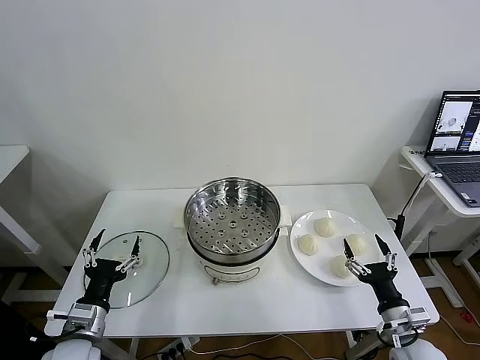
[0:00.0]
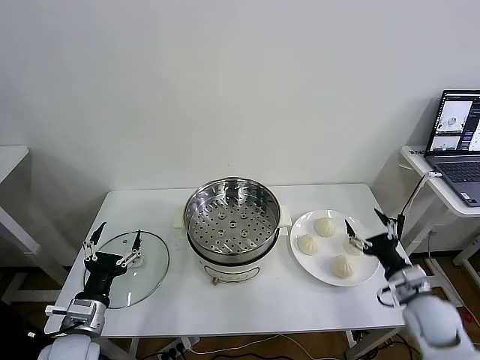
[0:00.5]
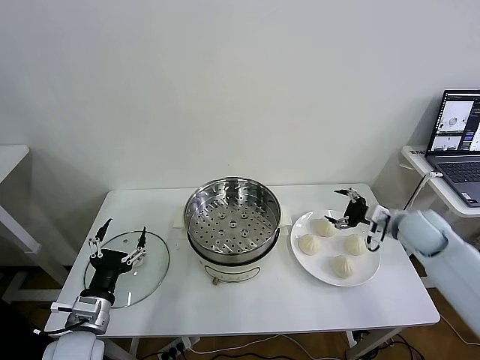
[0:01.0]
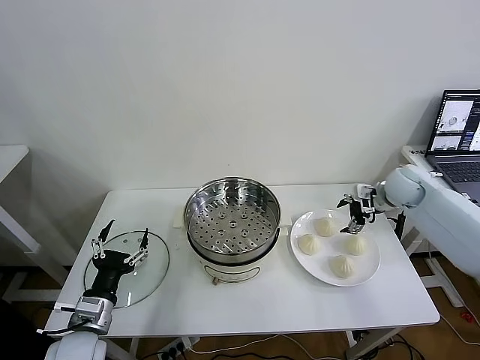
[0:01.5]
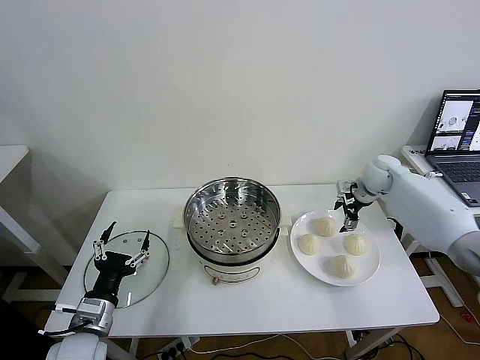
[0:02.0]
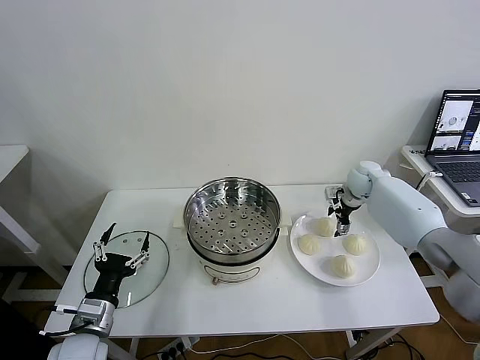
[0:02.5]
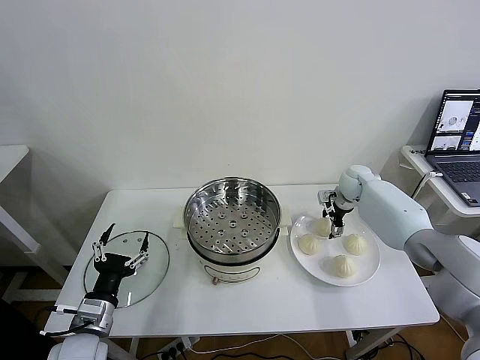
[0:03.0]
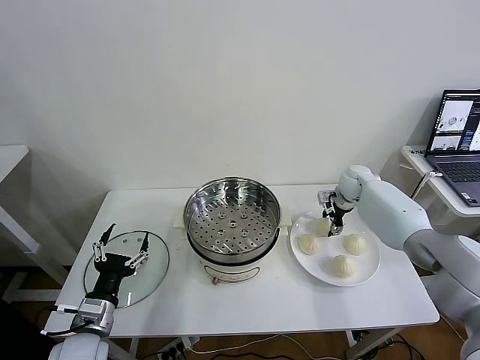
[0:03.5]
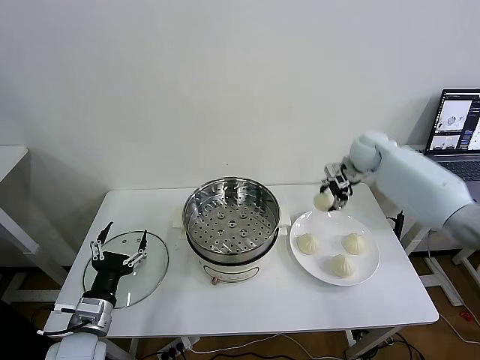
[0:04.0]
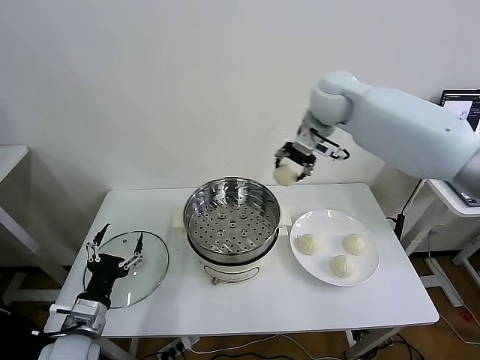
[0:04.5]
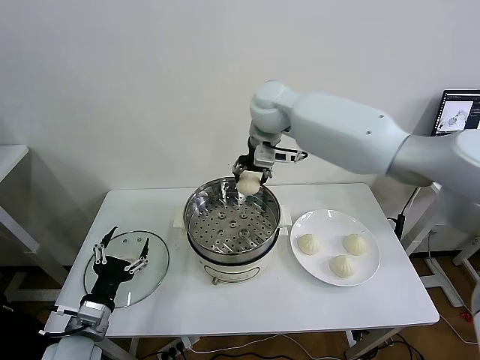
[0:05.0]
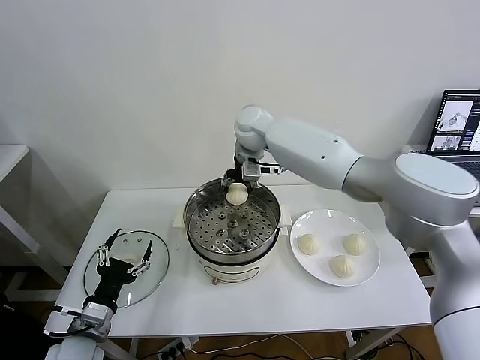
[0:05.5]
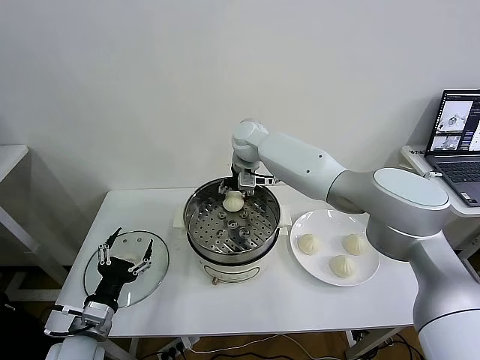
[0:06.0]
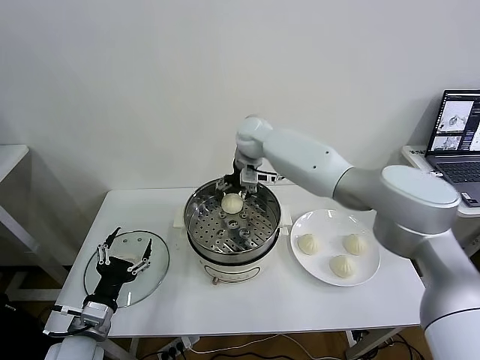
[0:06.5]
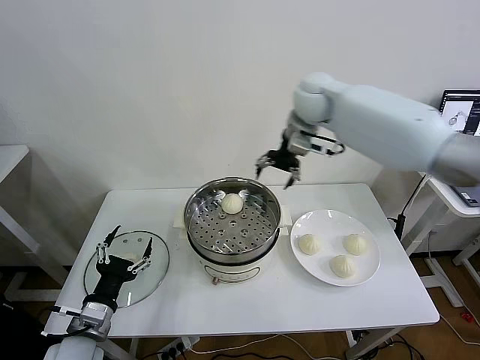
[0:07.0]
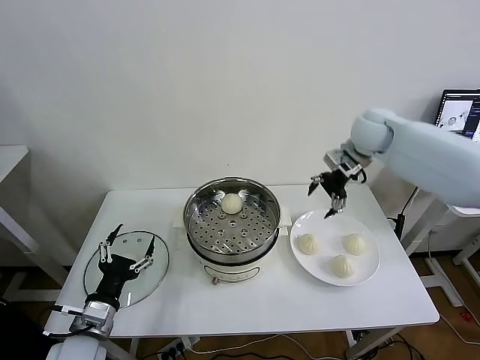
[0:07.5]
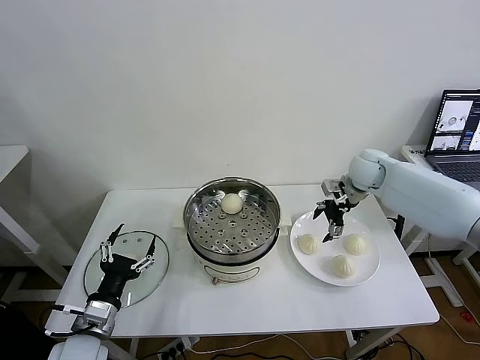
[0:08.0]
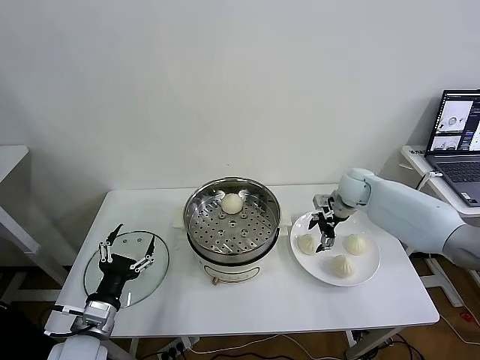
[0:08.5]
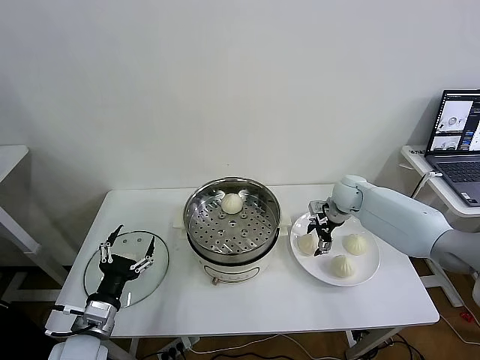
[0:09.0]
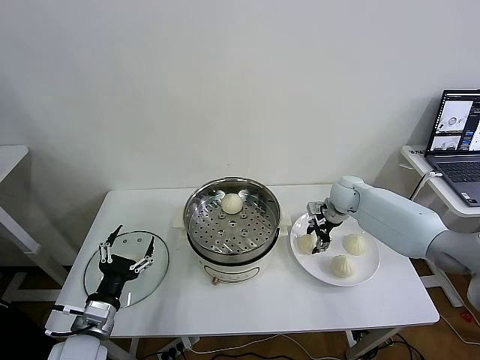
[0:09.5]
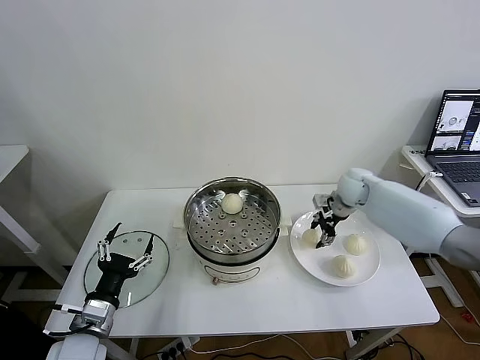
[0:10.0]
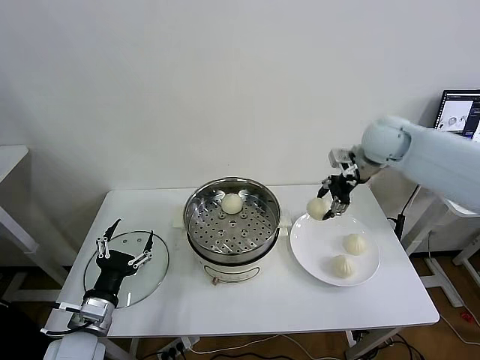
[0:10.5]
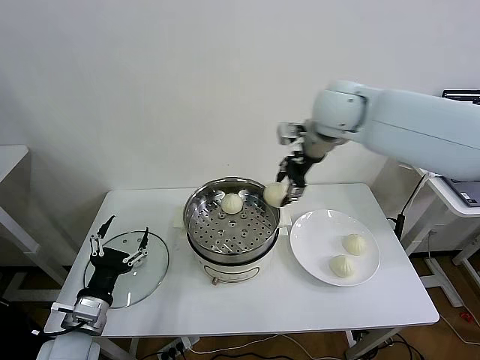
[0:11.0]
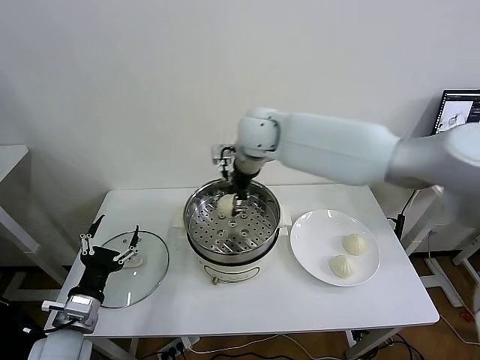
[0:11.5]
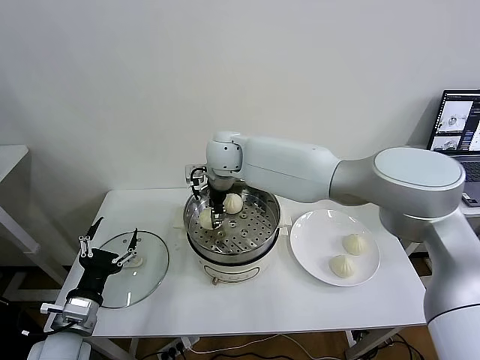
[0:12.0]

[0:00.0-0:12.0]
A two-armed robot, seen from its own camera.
Task of the whole recording: take steamed baozi put them in steamer then cover it.
Step, 0.0 to 3.0 s: Grasp the baozi in the plate with right gripper.
Step, 3.5 to 6.0 s: Place the baozi on the steamer with right gripper.
Step, 6.5 to 9.0 s: Grasp the baozi in the plate with right gripper.
2.0 to 4.0 s: The right gripper goes about 20 cm upward and to the left, and closes up.
4.0 to 6.0 s: The right gripper goes about 25 cm to the left.
6.0 to 8.0 s: The right gripper is displaced to the right by about 30 cm, and opens its fingers.
8.0 to 10.0 s: The right gripper closes.
10.0 to 12.0 s: The right gripper moves to the left, approximately 35 cm.

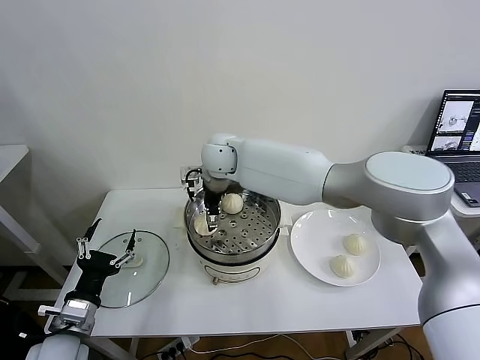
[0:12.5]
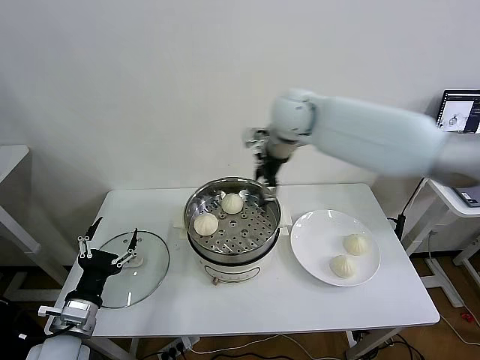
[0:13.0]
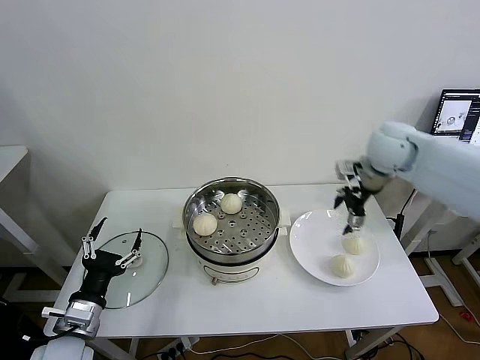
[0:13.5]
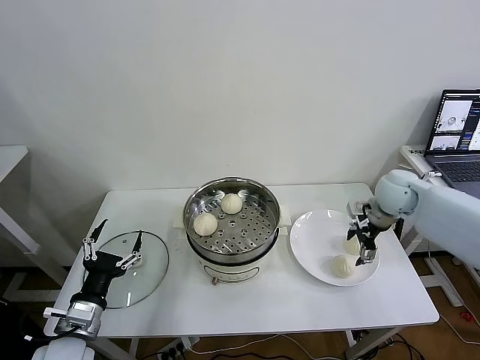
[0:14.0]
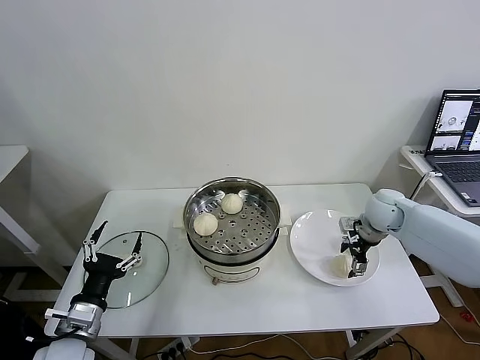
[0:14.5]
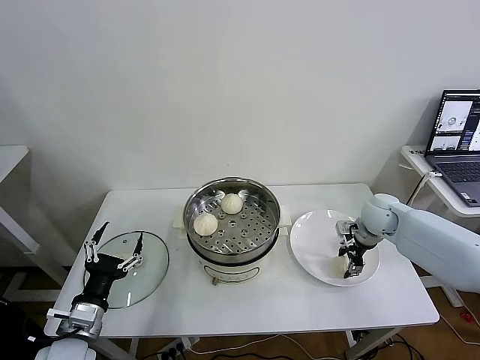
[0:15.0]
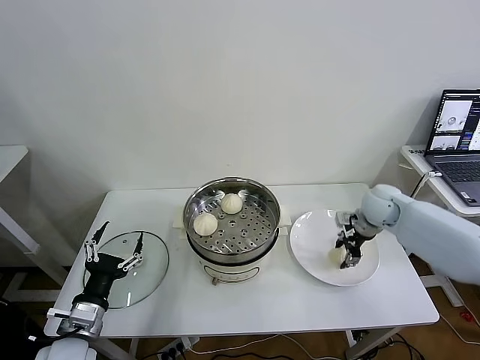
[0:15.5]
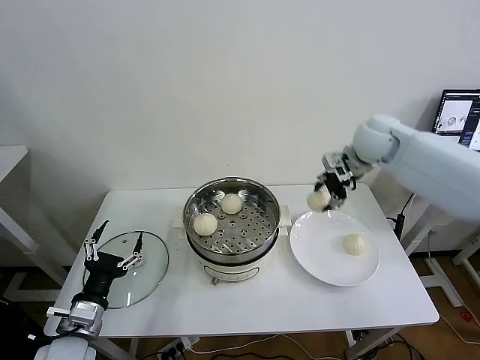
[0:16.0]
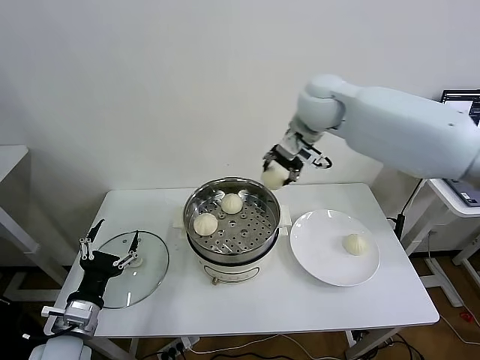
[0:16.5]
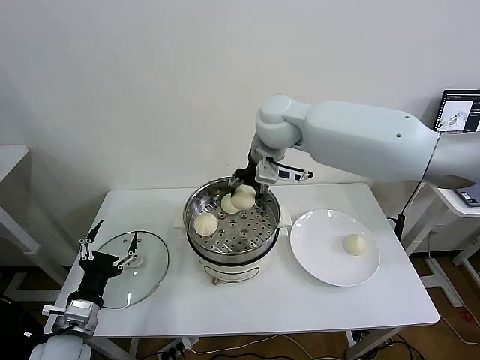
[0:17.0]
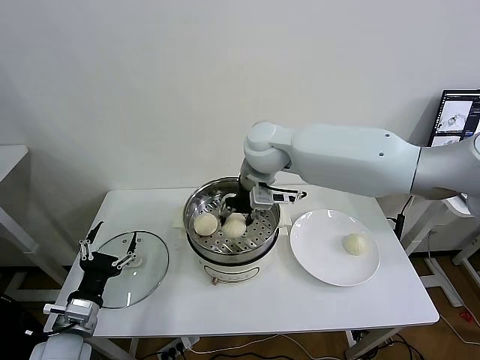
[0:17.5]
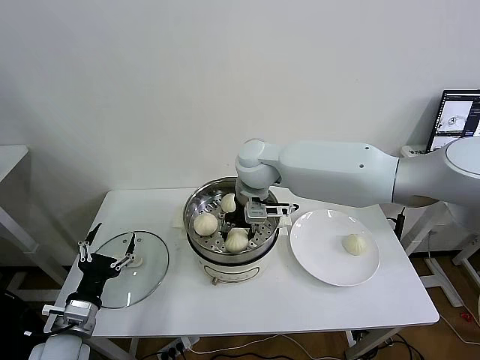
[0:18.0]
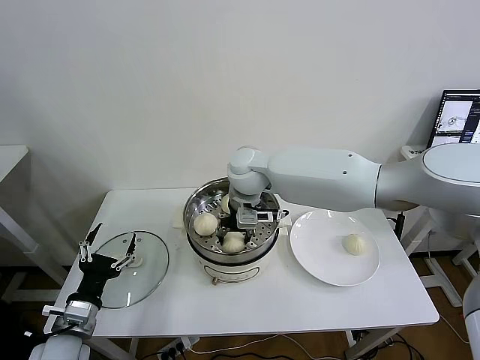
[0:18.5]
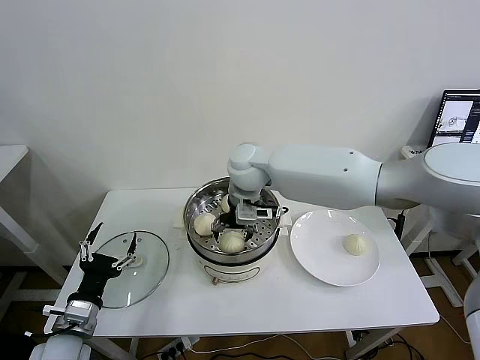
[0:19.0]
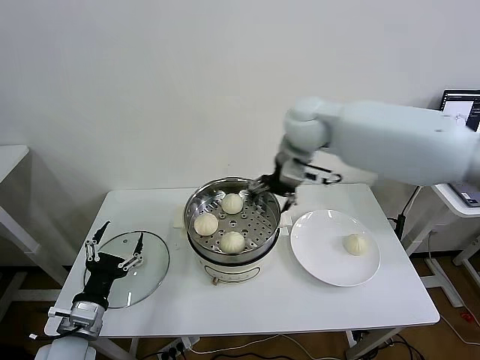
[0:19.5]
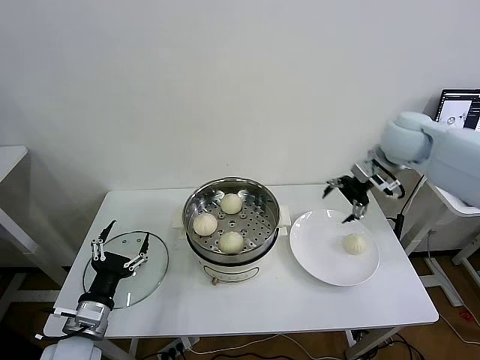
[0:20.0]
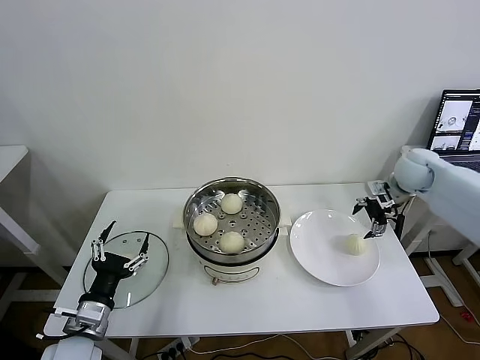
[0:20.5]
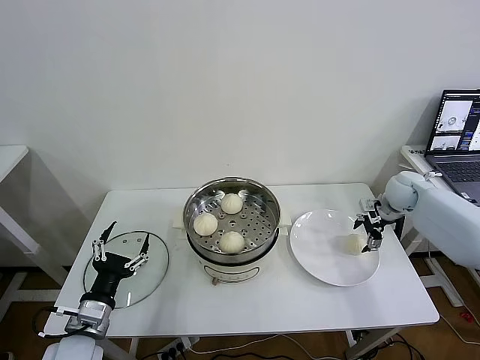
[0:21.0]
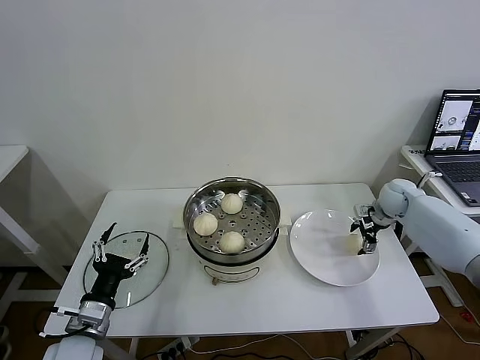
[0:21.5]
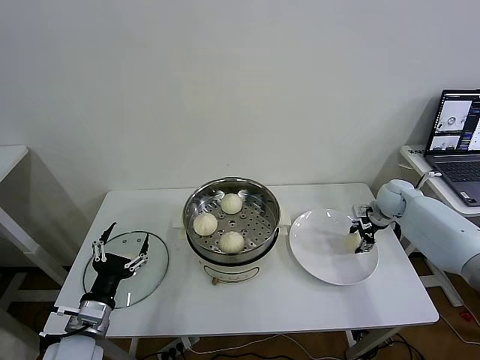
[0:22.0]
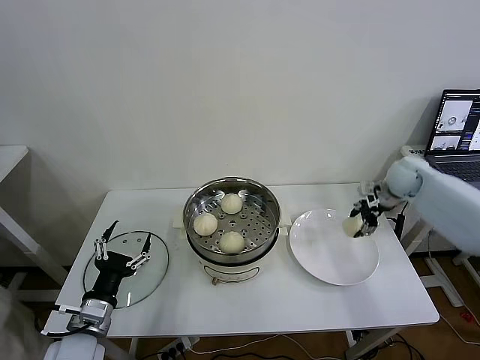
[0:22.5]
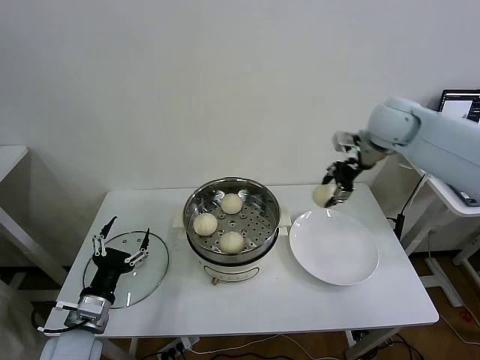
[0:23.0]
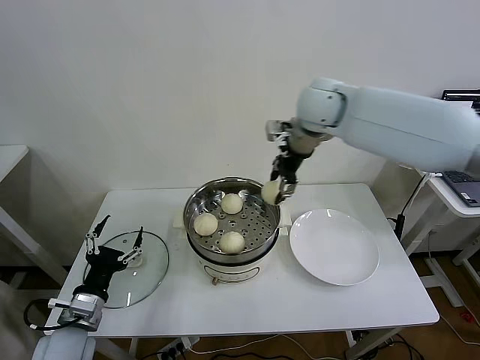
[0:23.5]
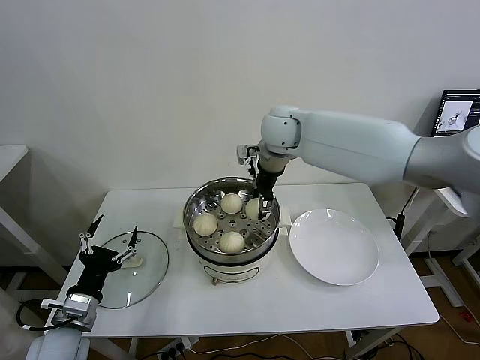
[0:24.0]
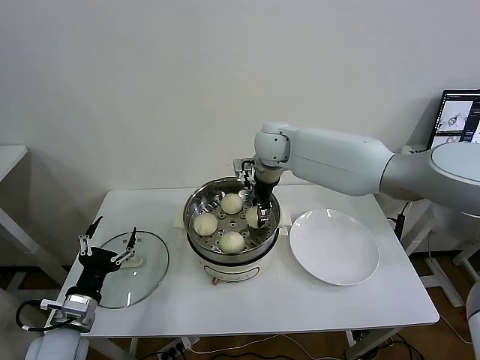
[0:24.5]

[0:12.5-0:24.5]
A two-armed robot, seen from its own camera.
Task of the whole recording: take steamed baozi put them in steamer then cover it.
Step, 12.5 to 15.0 s: Grasp the baozi in the plate with right gripper.
Step, 15.5 to 18.5 s: Place the baozi on the steamer with right gripper.
Step, 19.0 to 21.5 s: Grasp the baozi in the plate with right gripper.
12.5 to 14.5 s: The right gripper shifts some 40 cm to the right and downward.
14.5 to 16.5 s: The right gripper travels upward and to the left by some 35 cm, and closes its fingers.
16.5 to 18.5 s: The right gripper heads downward and to the left, covering roughly 15 cm.
18.5 to 20.5 s: The right gripper is displaced to the right by approximately 40 cm, and opens up.
20.5 to 22.5 s: The right gripper reaches approximately 10 cm downward, then returns, and closes its fingers.
22.5 to 24.5 s: The right gripper moves to the left, roughly 35 cm.

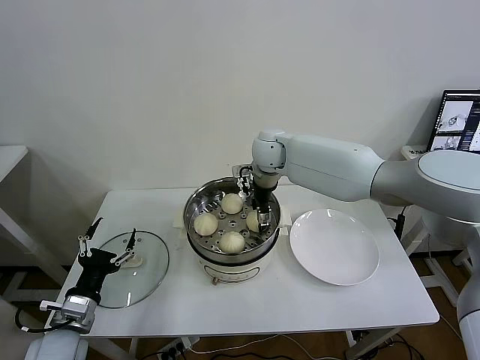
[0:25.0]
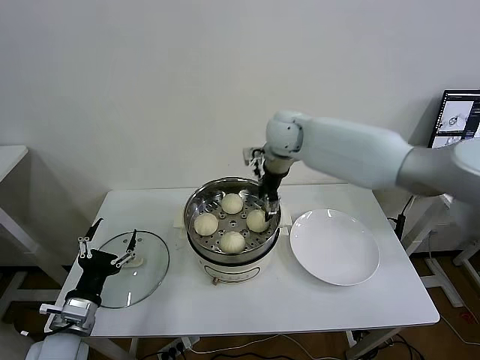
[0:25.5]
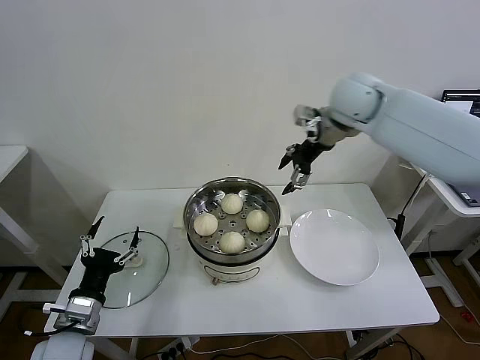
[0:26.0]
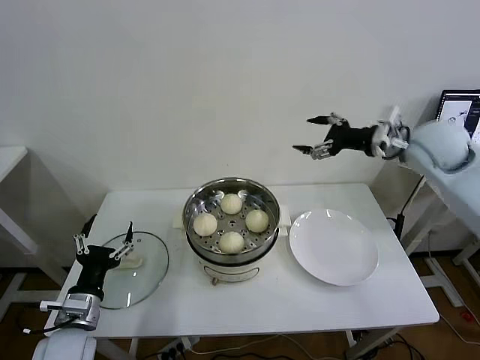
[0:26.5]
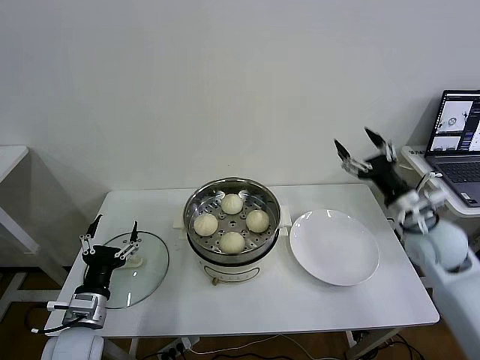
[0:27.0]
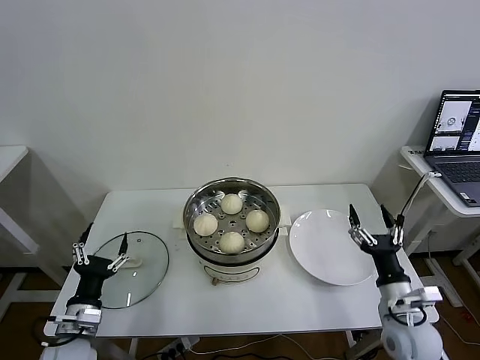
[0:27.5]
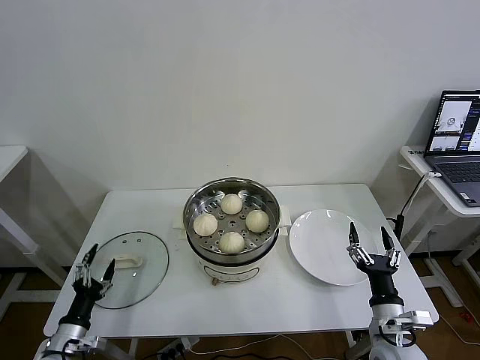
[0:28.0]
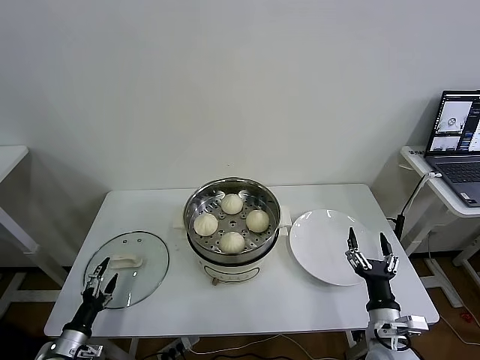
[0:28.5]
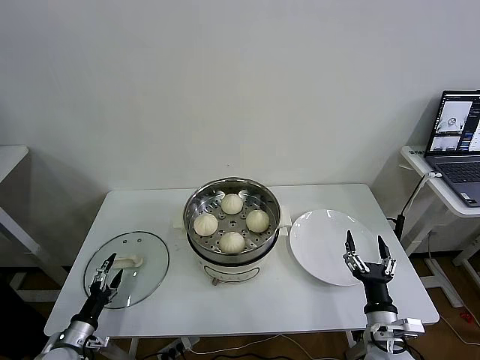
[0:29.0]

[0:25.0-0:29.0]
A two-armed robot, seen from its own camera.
Task of the whole recording: take steamed baozi put them in steamer then cover it.
25.0 to 27.0 s: The right gripper travels to the right and backward by roughly 40 cm.
27.0 to 29.0 s: The left gripper shifts roughly 20 cm downward and to the left. Meanwhile the right gripper goes roughly 25 cm downward, backward and to the left.
